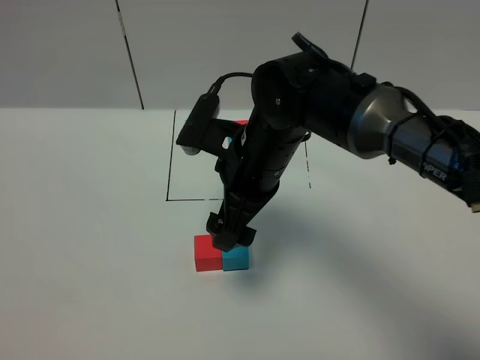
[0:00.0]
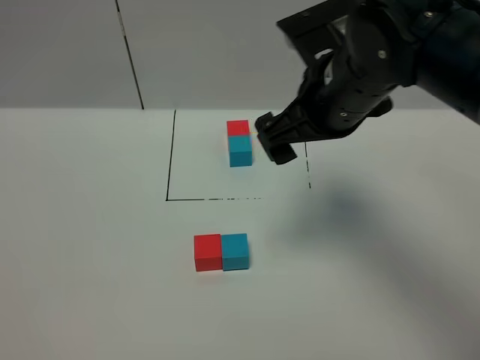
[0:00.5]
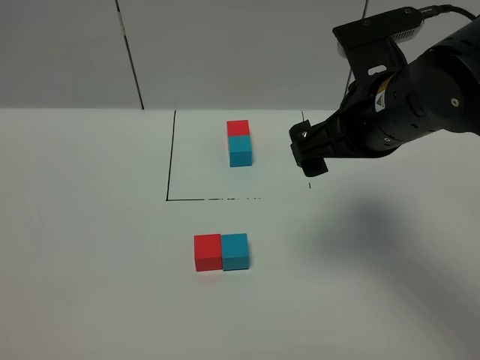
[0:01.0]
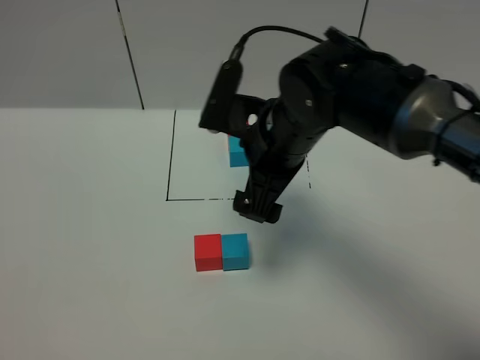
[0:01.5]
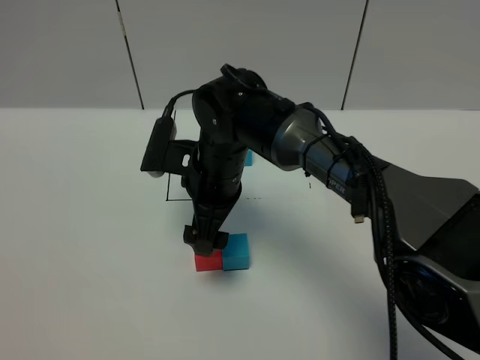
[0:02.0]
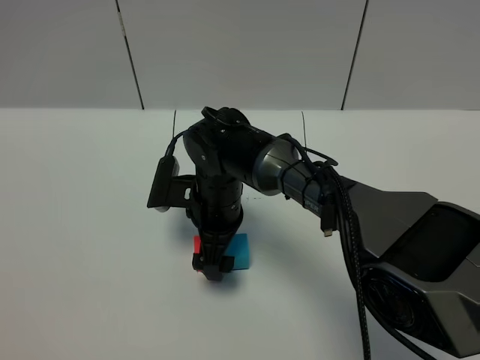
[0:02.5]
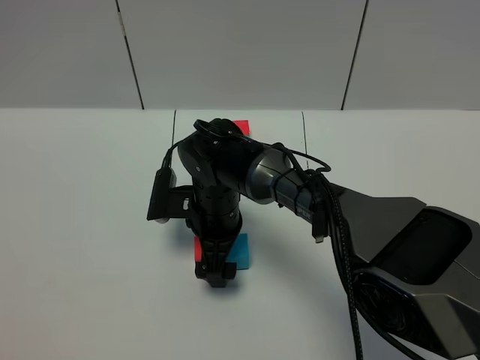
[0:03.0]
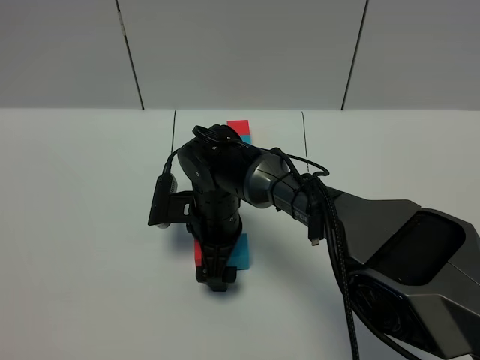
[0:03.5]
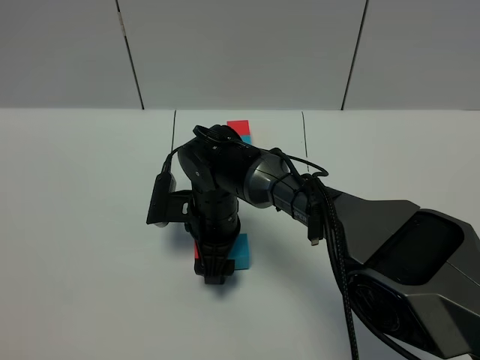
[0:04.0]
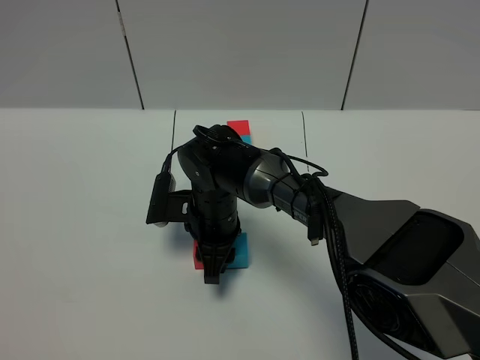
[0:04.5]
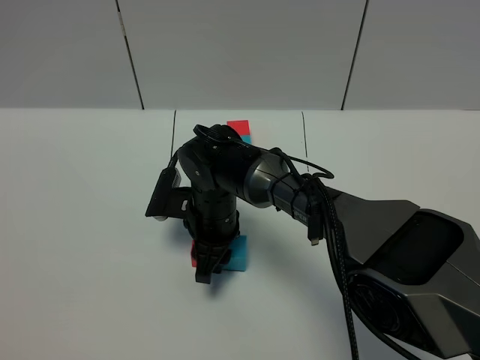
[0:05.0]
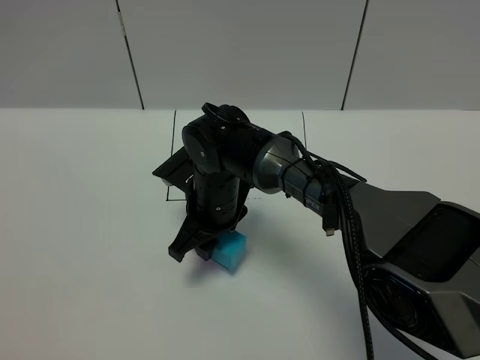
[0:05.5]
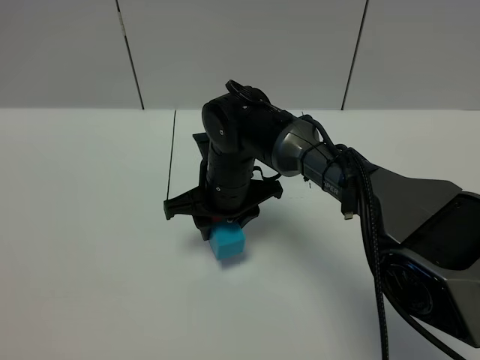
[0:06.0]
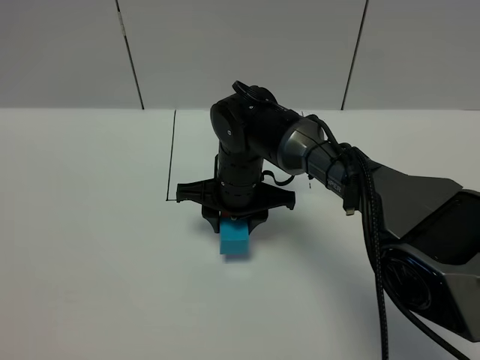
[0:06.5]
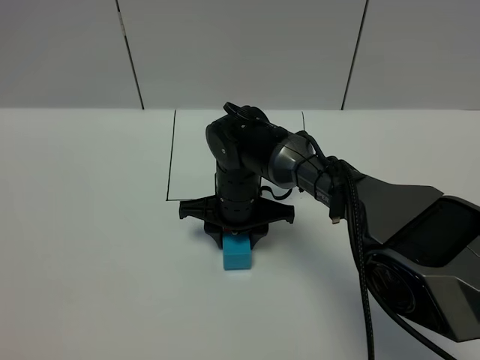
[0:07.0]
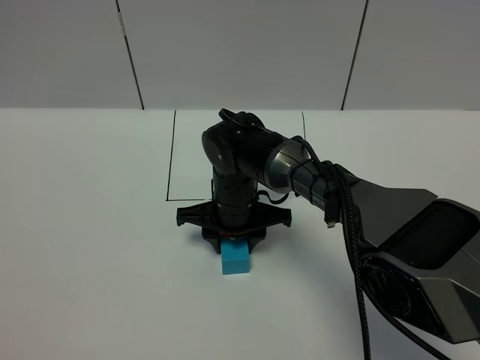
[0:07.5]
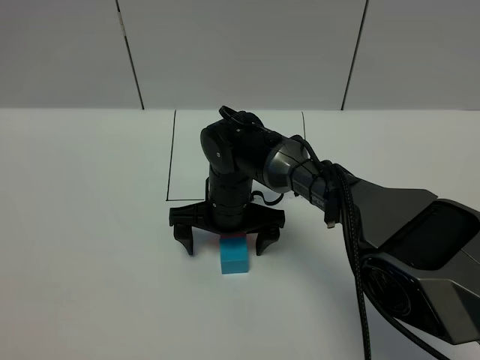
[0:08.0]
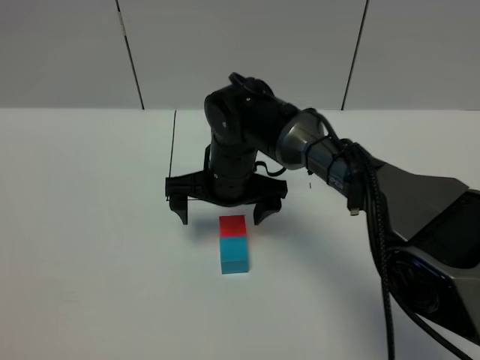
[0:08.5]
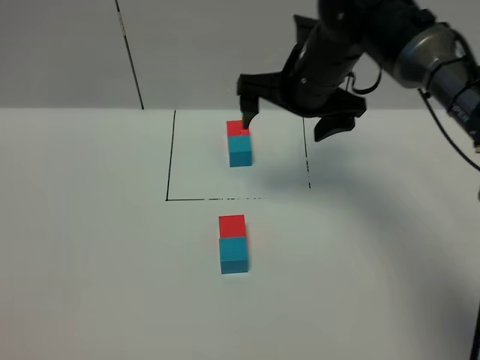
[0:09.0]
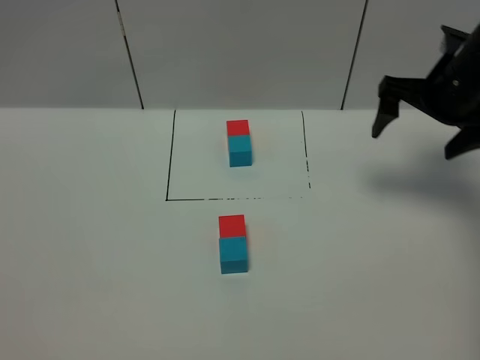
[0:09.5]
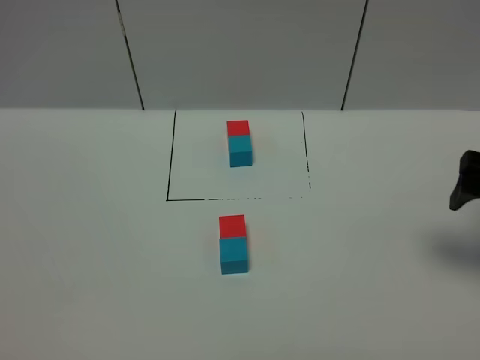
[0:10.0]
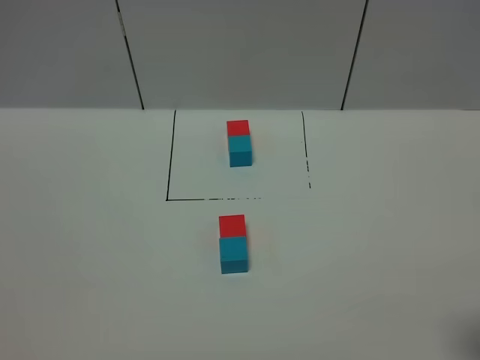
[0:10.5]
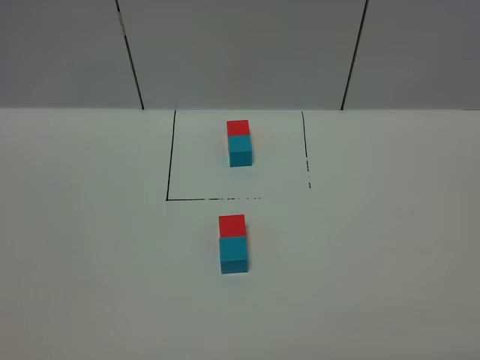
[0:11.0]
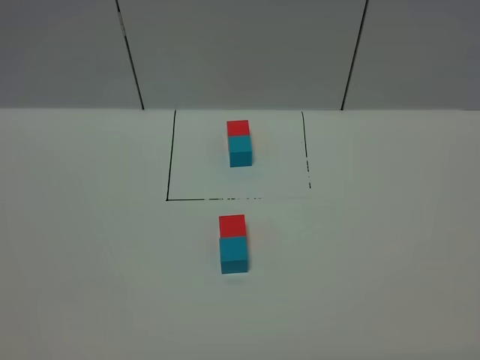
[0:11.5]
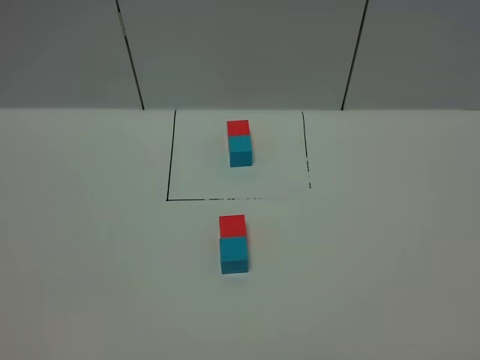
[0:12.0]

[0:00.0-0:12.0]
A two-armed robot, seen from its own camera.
Task of the whole recording: According to the building block template in front, assemble the scattered blocks together.
Step, 0:00.0 to 0:08.0: Adjust the pose of the building blocks.
0:00.0 to 0:02.0: The right gripper is displaced downward by about 5 cm, and reaches some 10 cm to the right, then returns.
0:02.0 to 0:04.0: The right gripper is displaced downward by roughly 5 cm, and closes its fingers.
0:04.0 to 0:06.0: The right gripper moves roughly 5 cm, and closes up.
0:06.0 to 0:08.0: The right gripper opens its fingers.
0:08.0 to 0:10.0: The right gripper shifts approximately 40 cm to the right and upward.
0:10.0 to 0:12.0: The right gripper is displaced backward by some 30 cm.

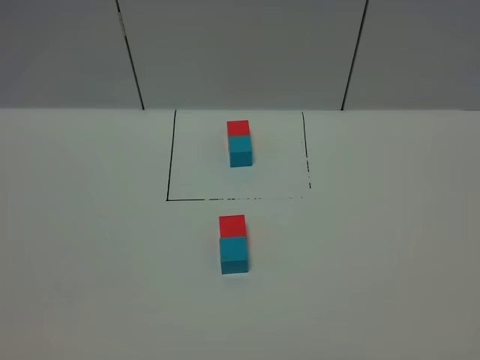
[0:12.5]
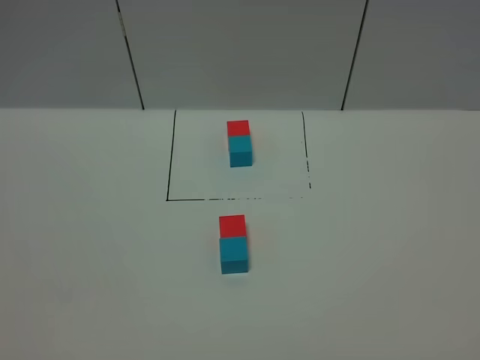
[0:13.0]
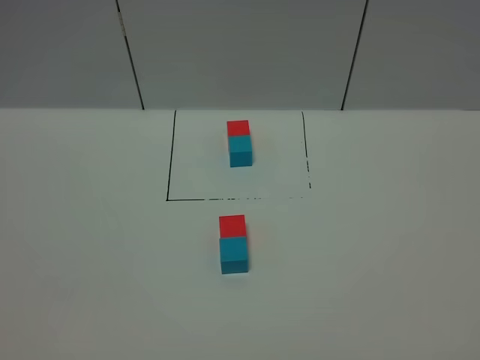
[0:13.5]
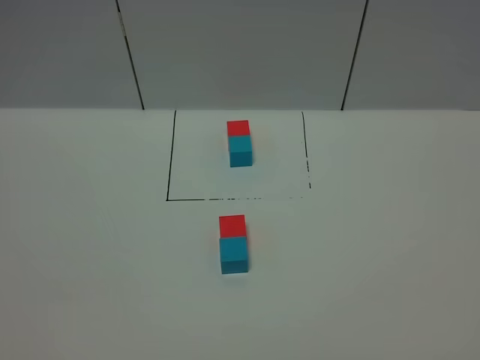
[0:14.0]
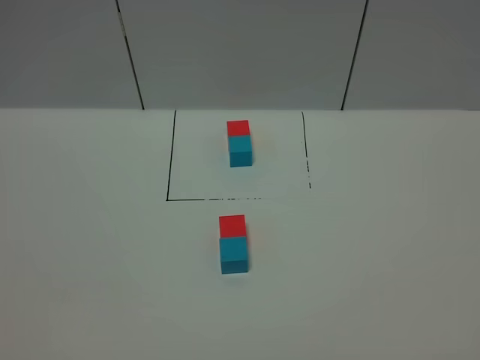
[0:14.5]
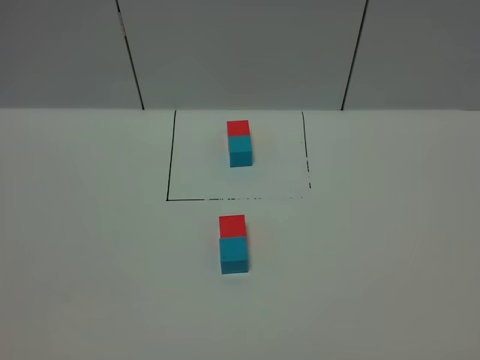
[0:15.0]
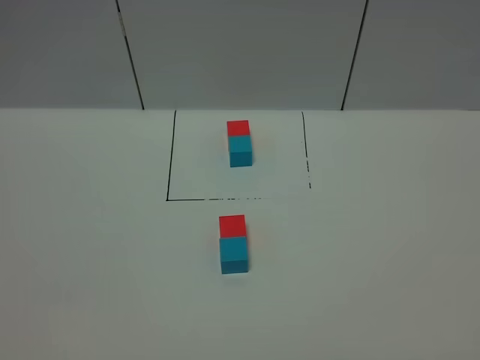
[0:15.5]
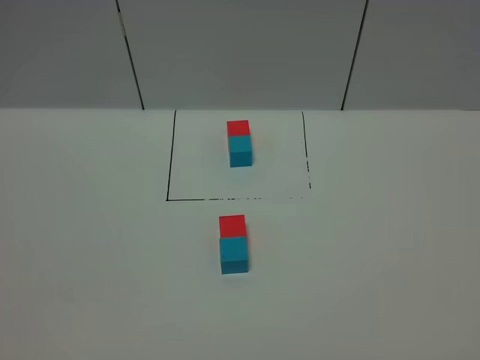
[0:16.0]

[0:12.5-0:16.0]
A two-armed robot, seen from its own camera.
Task of the whole recording: According to the building block template in front, assemble the scattered blocks together.
0:12.5 to 0:16.0: Both grippers stay about where they are.

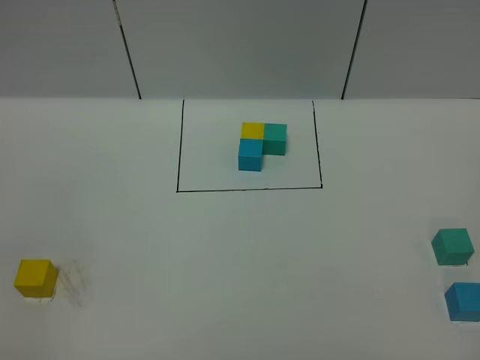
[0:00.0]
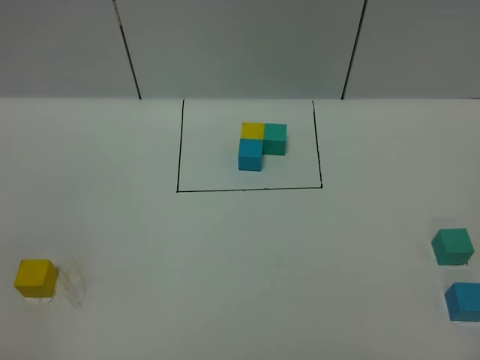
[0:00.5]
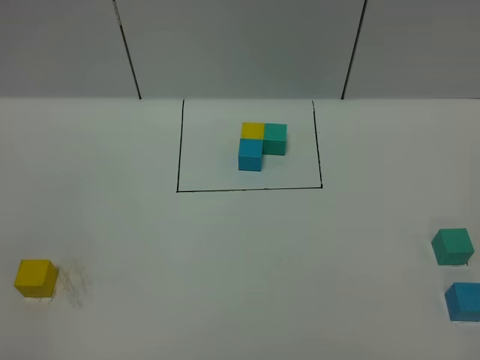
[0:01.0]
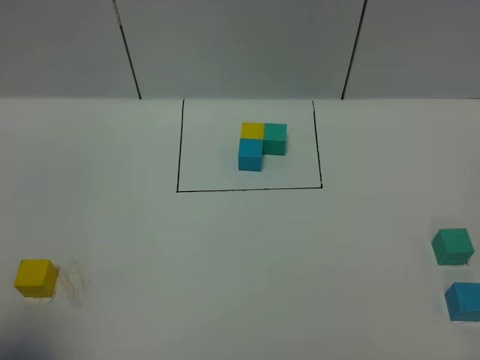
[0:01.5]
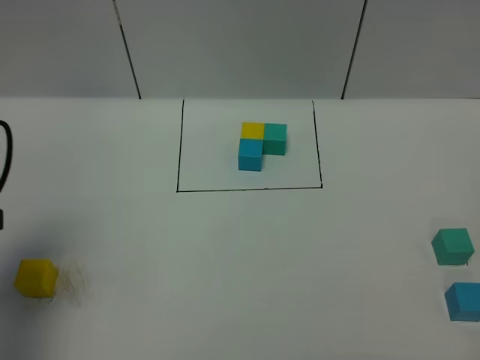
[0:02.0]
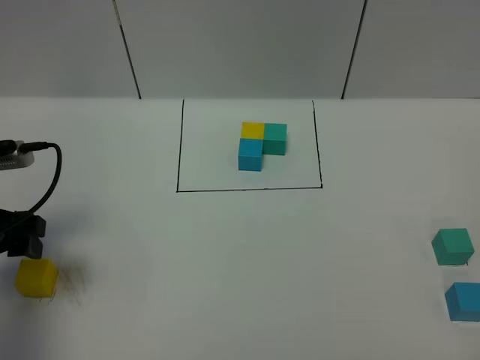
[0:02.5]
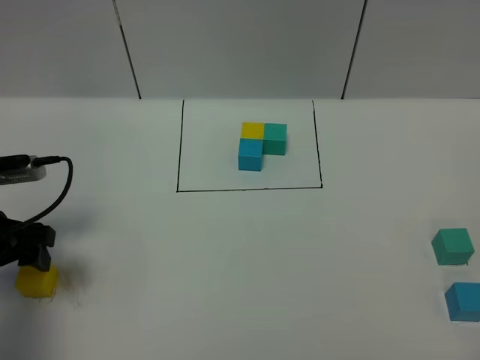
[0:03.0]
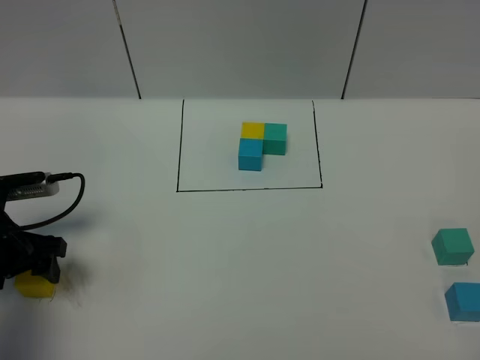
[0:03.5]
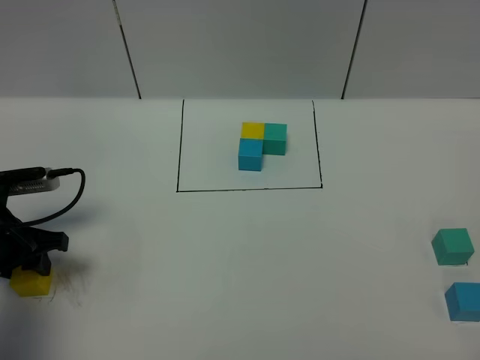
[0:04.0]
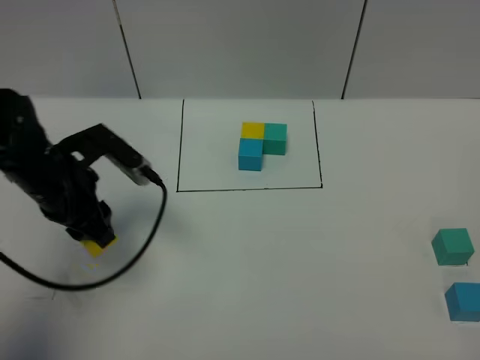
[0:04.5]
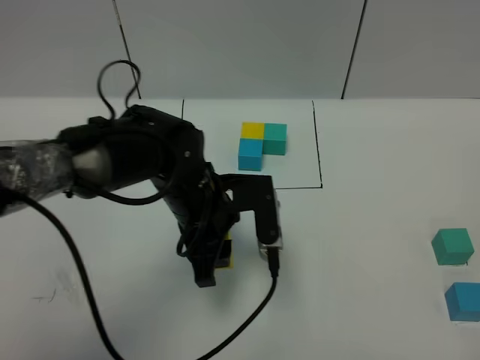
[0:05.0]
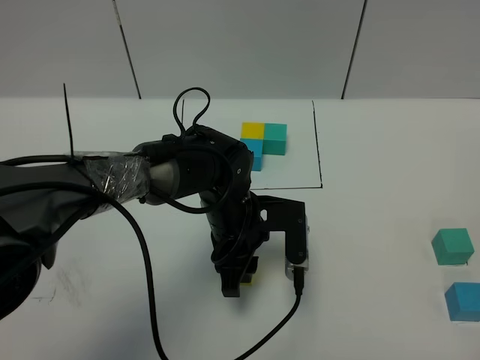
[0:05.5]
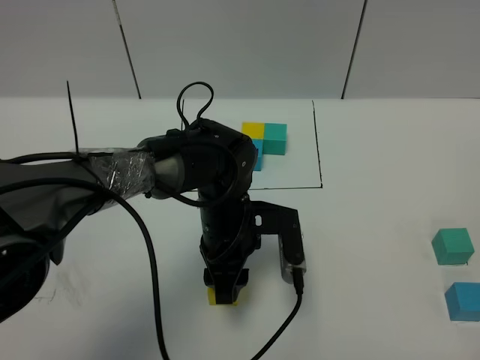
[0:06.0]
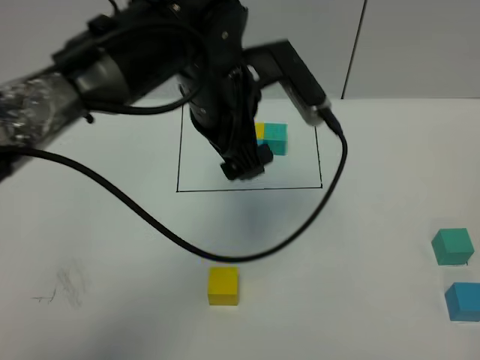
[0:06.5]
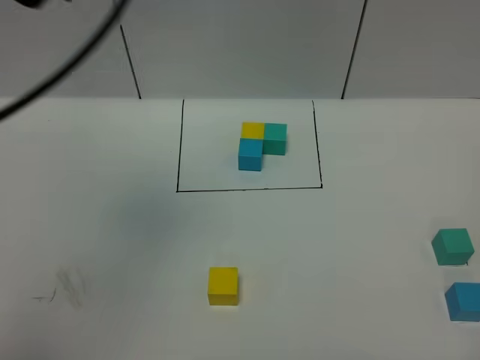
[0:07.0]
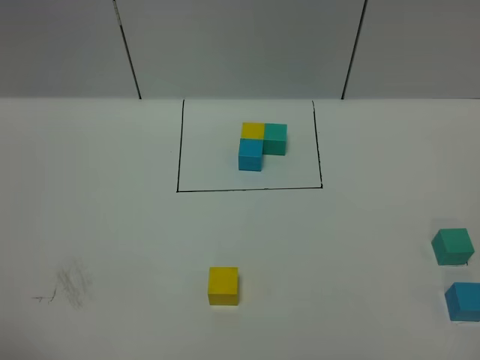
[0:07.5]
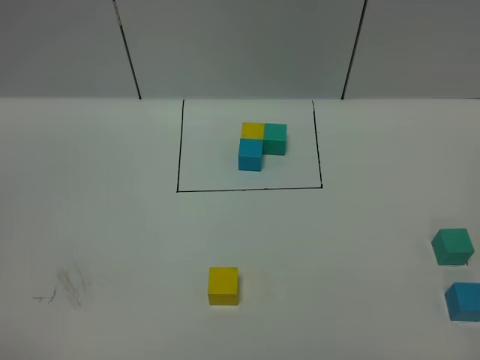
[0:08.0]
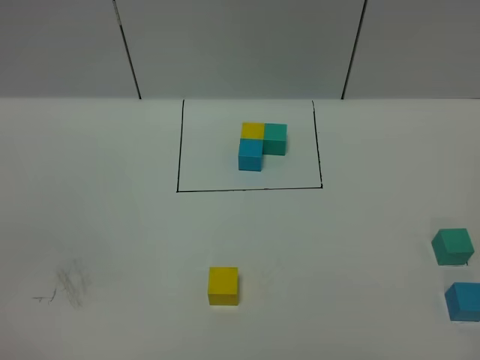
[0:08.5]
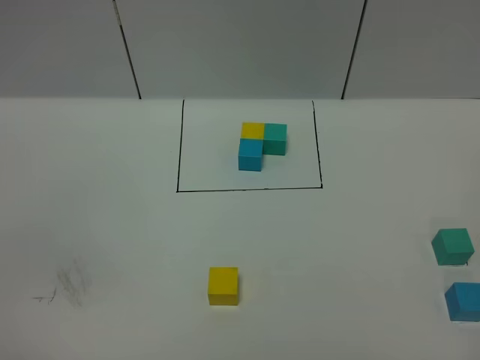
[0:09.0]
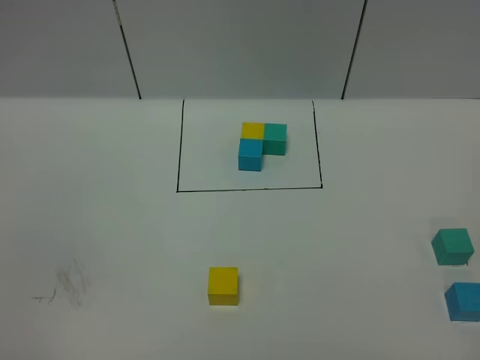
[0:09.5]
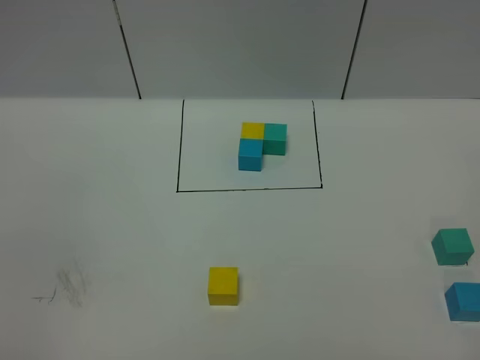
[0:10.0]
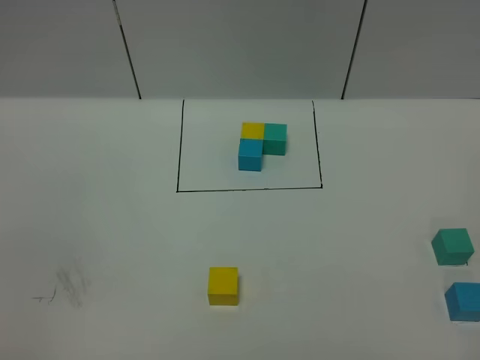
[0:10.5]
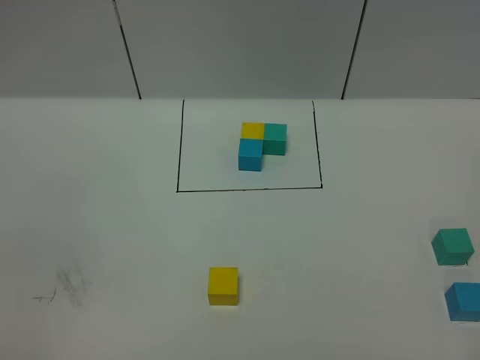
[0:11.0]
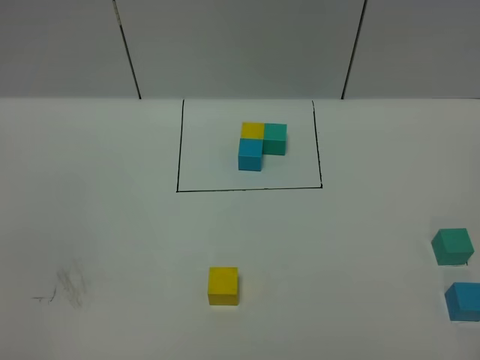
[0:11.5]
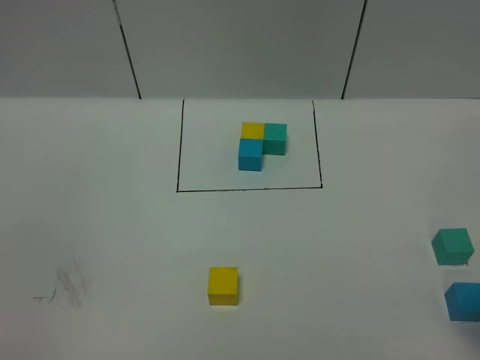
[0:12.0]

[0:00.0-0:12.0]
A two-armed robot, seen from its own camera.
Task of the whole recording: According to the building block template in front, assemble the scattered blocks together.
Step, 0:02.0 to 0:06.0: Put the yellow cube in the center of the table.
0:00.0 to 0:02.0: The left gripper is displaced forward by about 25 cm.
0:02.0 to 0:04.0: The left gripper is displaced downward and forward by about 15 cm, and closes.
0:04.0 to 0:06.0: The left gripper travels to the right by approximately 30 cm, and opens.
0:06.0 to 0:08.0: The left gripper shifts some 60 cm backward, upward and to the left, and opens.
